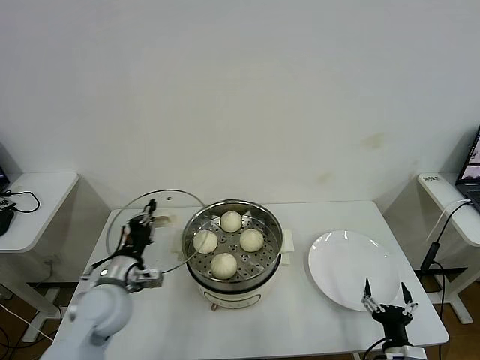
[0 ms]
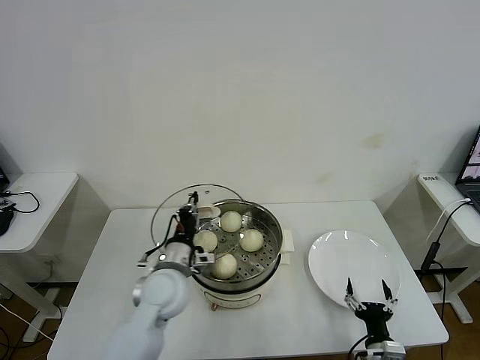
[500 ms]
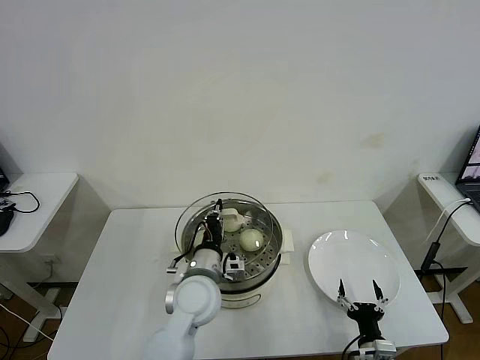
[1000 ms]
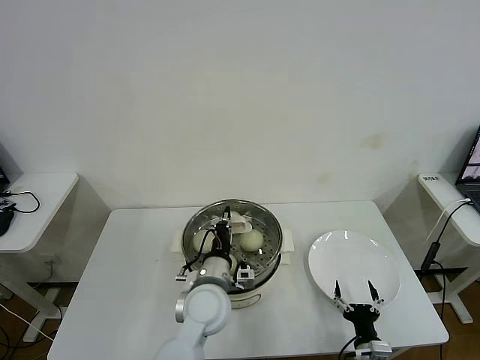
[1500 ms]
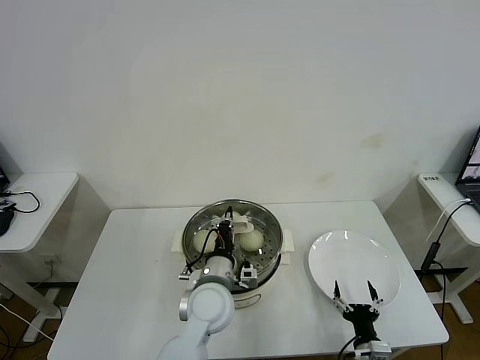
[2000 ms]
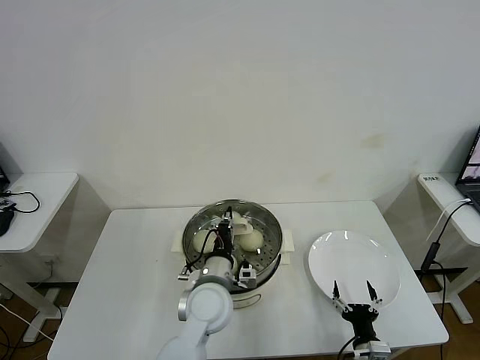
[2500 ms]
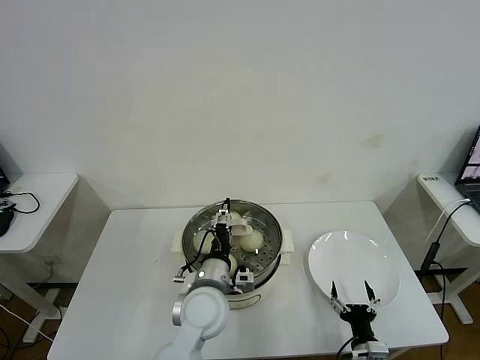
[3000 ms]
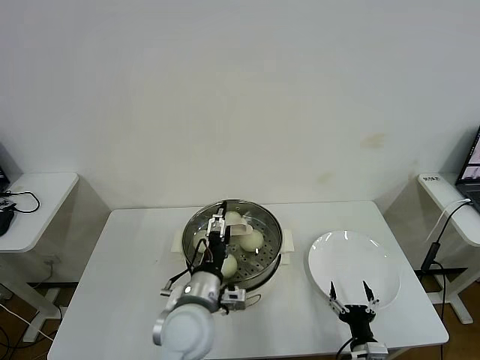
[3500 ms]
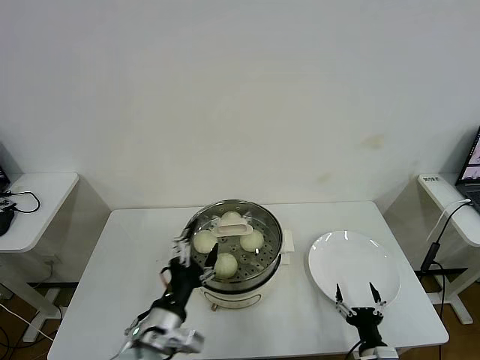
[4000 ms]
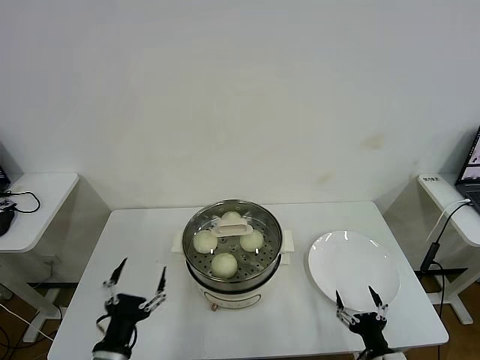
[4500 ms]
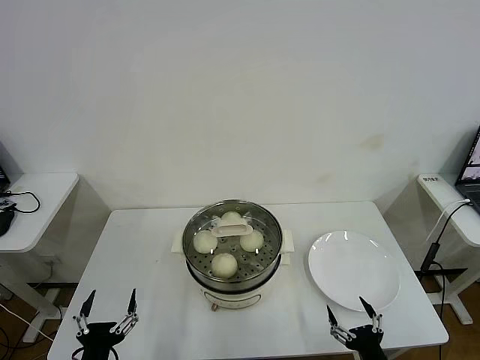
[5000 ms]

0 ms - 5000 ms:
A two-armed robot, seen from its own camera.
Task of the whole recording: take steamed baozi put them in steamer then cover it.
Step, 0 ms - 3000 ms: Place the pot lid on the steamer with left gripper.
0 ms - 2500 ms: The right gripper moves roughly 5 cm, while the left gripper goes about 20 cm to the right.
2500 ms - 5000 ms: The left gripper heads backward and to the left, covering approximately 30 cm, and opens its fingers, while the right gripper travels backward and upward by approximately 10 cm.
